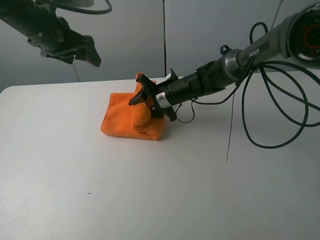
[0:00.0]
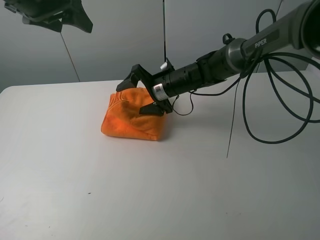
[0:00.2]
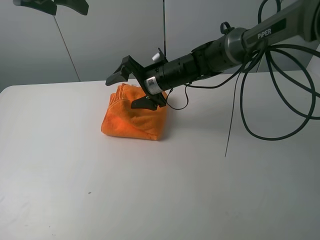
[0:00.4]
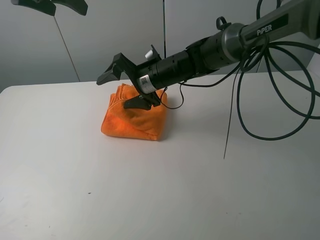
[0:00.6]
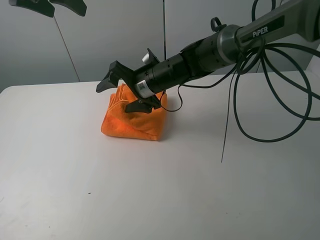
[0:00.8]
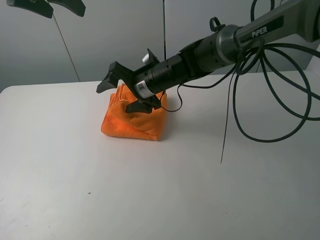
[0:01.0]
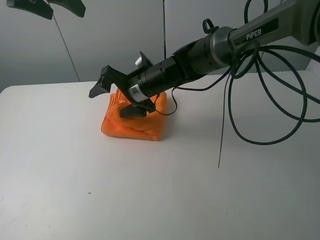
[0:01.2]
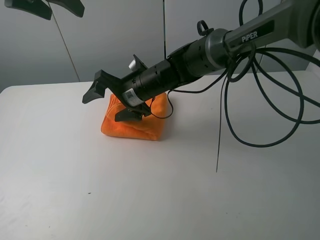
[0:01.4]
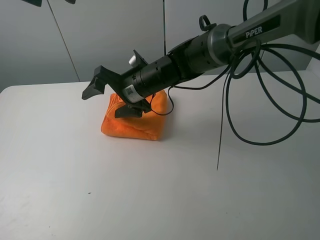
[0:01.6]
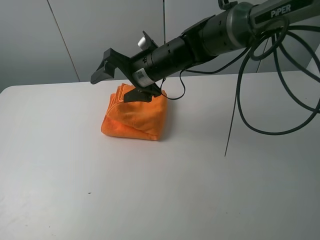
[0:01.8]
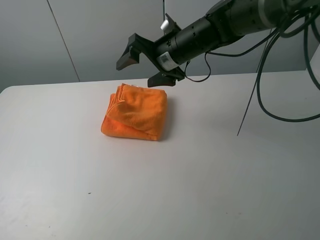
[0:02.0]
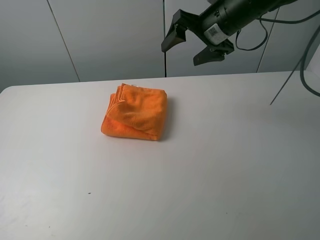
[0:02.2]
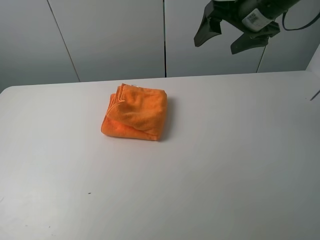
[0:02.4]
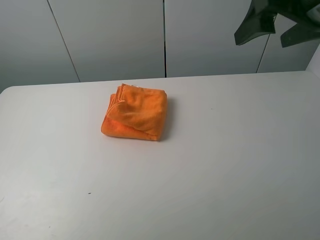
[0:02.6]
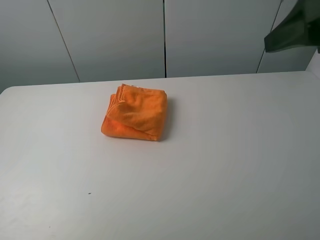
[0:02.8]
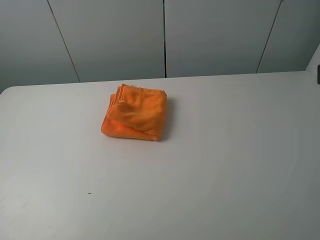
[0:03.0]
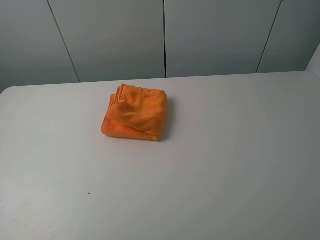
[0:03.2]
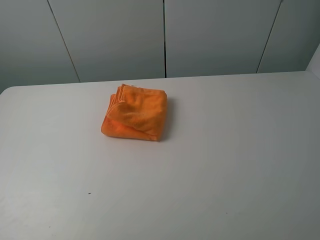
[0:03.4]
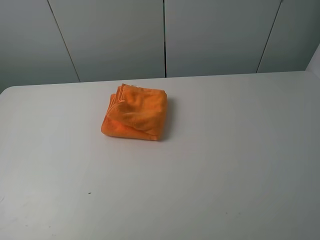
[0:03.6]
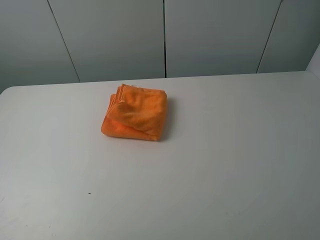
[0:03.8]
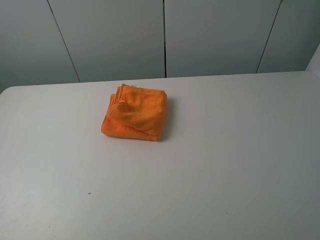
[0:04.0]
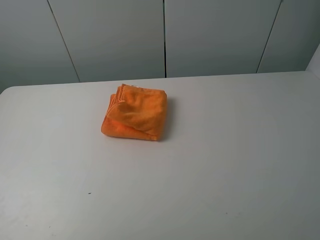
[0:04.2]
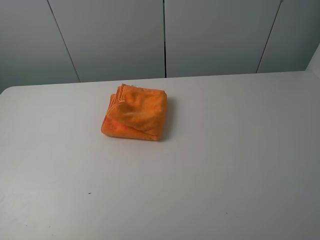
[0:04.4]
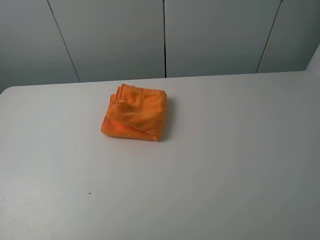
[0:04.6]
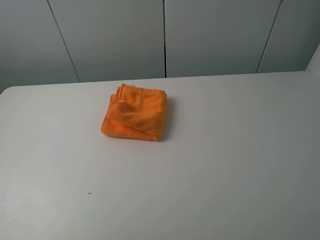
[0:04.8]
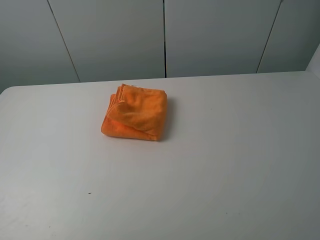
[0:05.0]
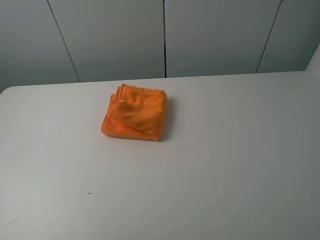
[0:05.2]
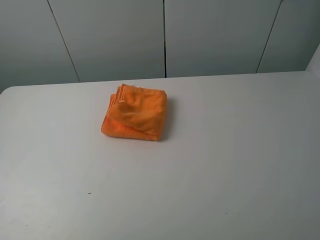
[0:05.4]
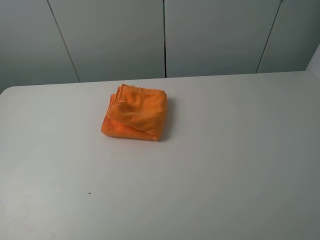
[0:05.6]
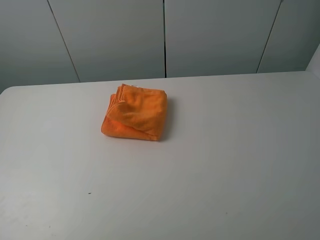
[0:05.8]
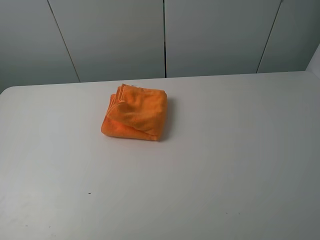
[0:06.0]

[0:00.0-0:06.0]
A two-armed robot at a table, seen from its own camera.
Task of the whole recording: fold the towels on the table.
Step, 0:00.0 to 0:02.0: Fold the orange towel from right to left with right gripper.
0:00.0 to 0:01.6: The right gripper travels upward, to the left and backward by roughly 10 cm; the left gripper shifts some 15 cm upward and backward.
0:01.6 to 0:03.0: The left gripper moves backward, about 30 cm. The right gripper heads to the right, backward and upward, covering roughly 40 cm.
